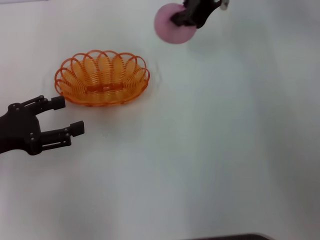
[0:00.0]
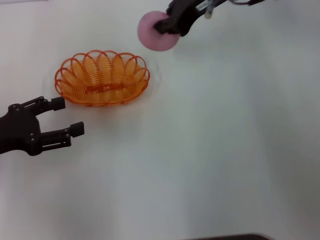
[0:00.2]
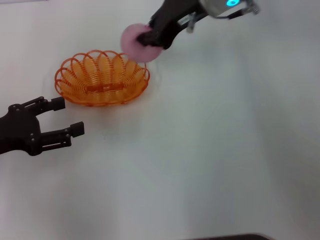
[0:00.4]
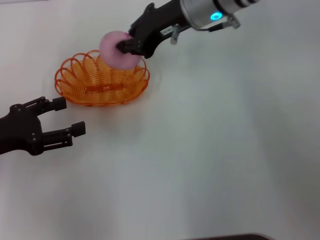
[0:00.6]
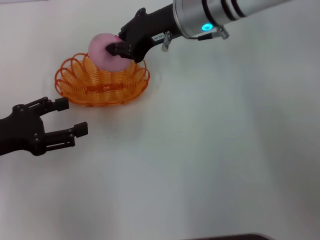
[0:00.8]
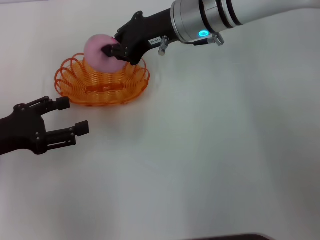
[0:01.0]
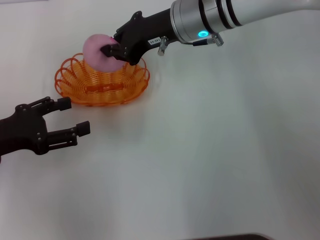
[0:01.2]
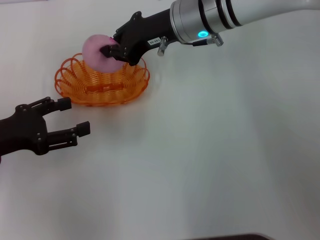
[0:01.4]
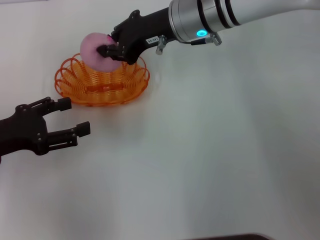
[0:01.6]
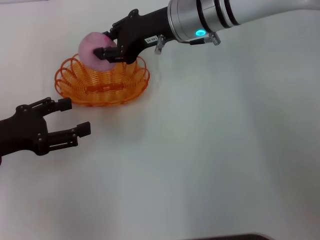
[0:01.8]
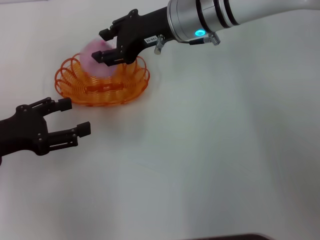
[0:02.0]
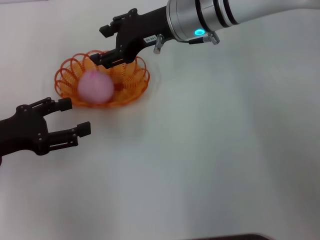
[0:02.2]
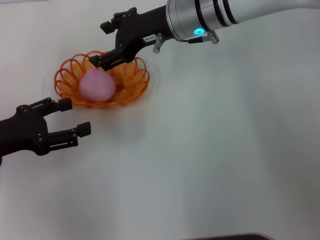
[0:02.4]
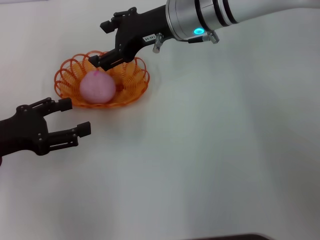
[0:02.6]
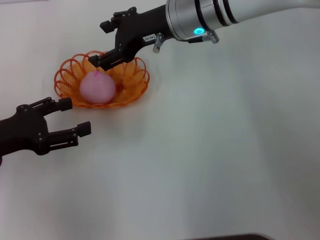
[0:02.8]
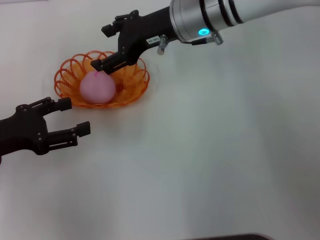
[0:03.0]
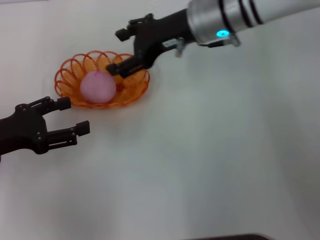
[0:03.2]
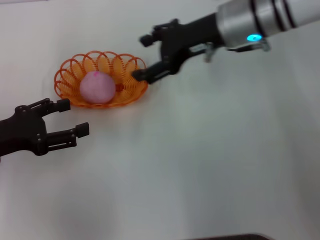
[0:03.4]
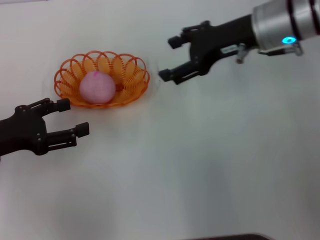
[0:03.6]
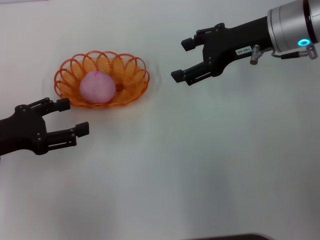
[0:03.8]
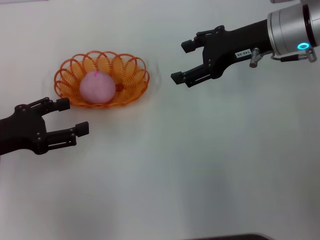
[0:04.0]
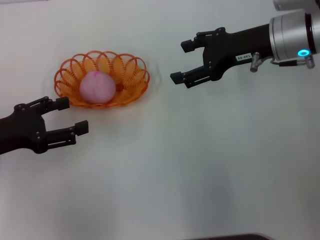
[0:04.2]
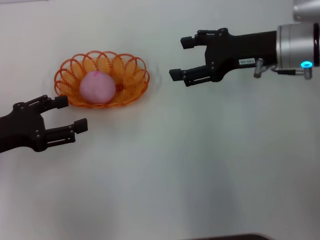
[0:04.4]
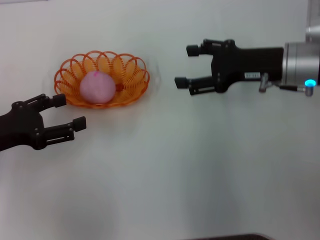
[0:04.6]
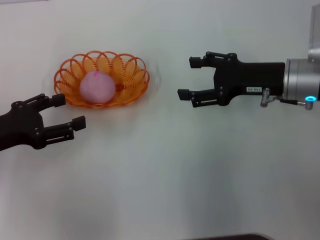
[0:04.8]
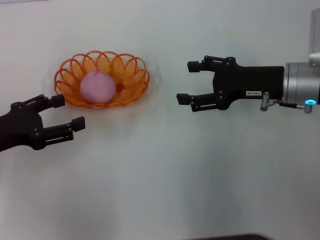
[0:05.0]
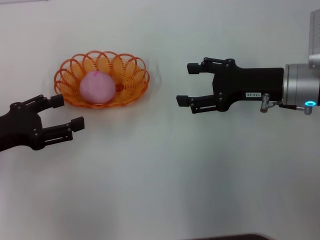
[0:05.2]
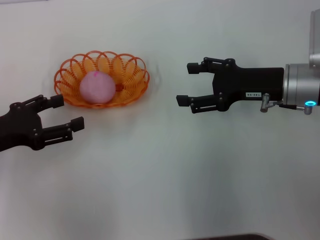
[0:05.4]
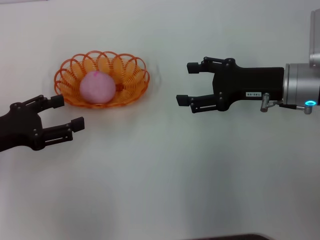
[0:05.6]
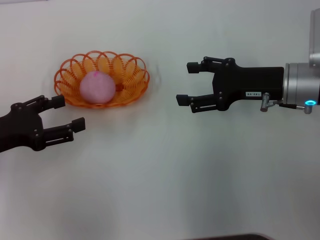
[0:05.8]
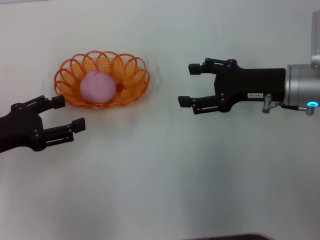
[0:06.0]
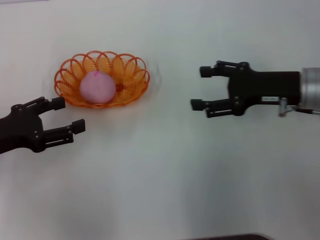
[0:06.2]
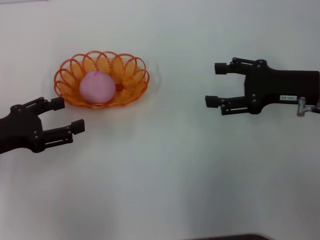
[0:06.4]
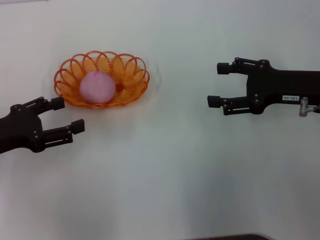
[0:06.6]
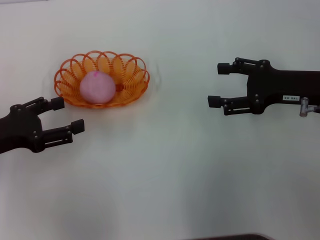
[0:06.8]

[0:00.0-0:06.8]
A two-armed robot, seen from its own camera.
Step, 0:00.0 to 0:02.8: Place the peach into the basket with the right gripper.
0:00.0 to 0:01.4: The right gripper travels downward and to the left by approximately 10 cm.
0:01.4 to 0:02.8: The right gripper opens up.
0:02.8 to 0:04.0: The right gripper heads to the right, covering roughly 10 cm.
0:04.0 to 0:05.4: The right gripper heads downward, covering roughly 5 cm.
0:05.4 to 0:06.8: The grippers move only a little.
